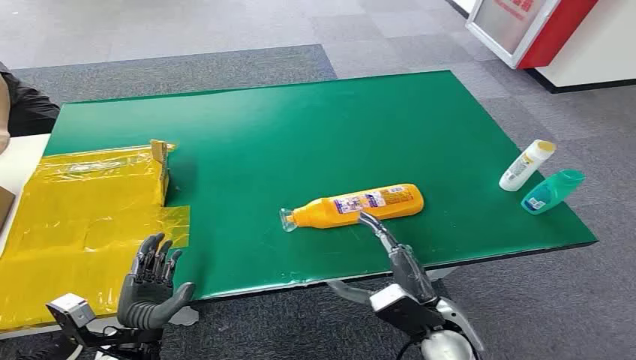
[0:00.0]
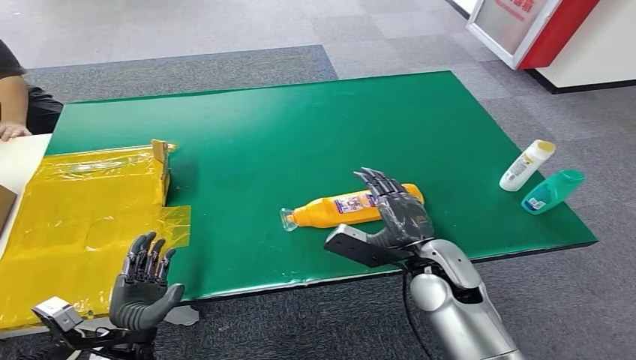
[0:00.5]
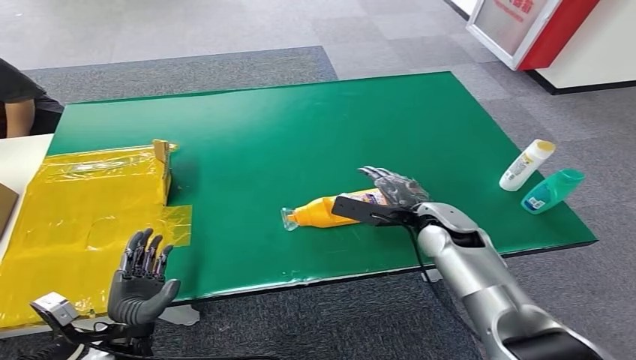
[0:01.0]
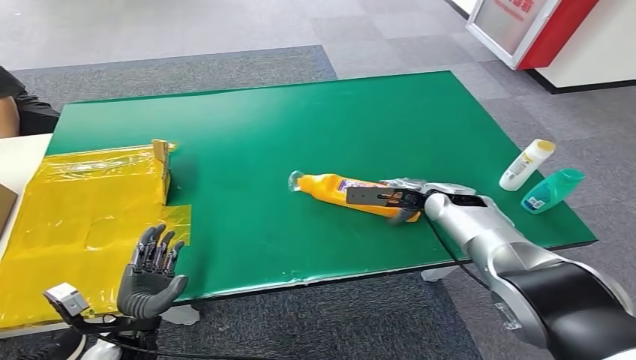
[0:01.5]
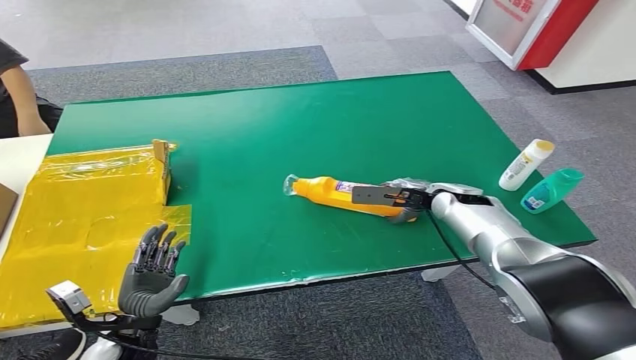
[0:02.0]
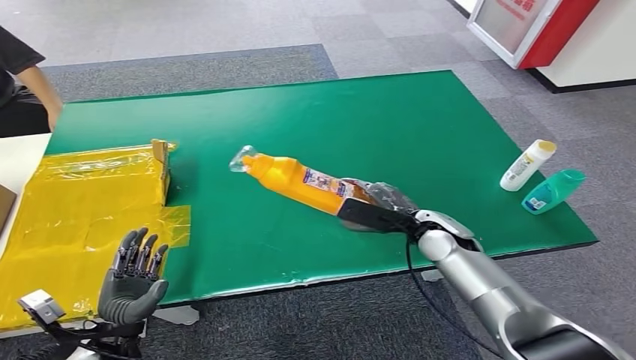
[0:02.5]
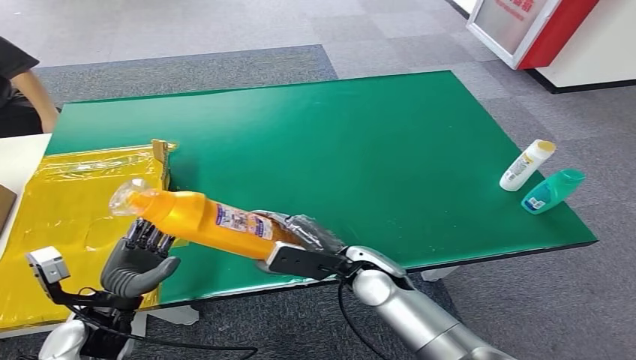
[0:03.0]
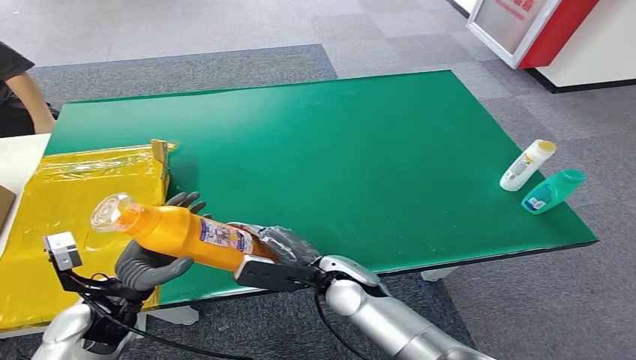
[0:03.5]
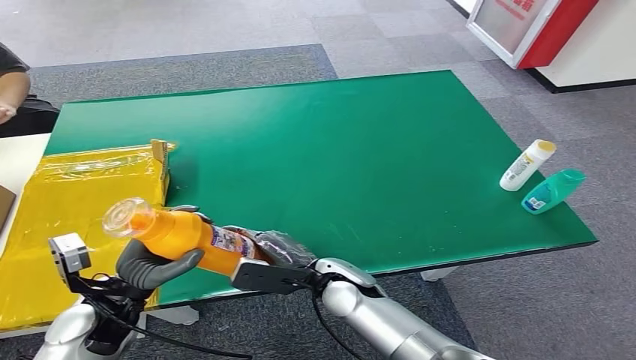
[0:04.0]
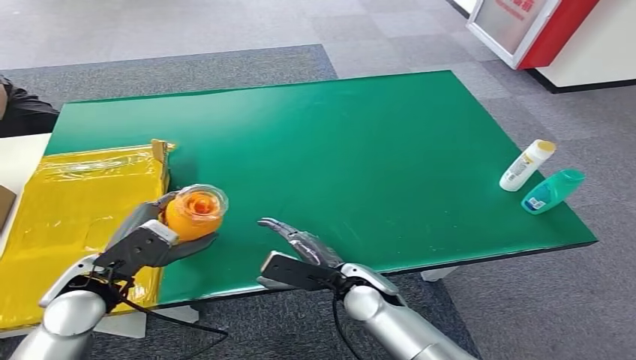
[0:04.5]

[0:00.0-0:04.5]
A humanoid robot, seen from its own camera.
Step, 0:00.0 to 0:02.5: Pick up the bottle from the table.
Step, 0:03.0 to 0:04.5: Turn the bottle to the front side.
